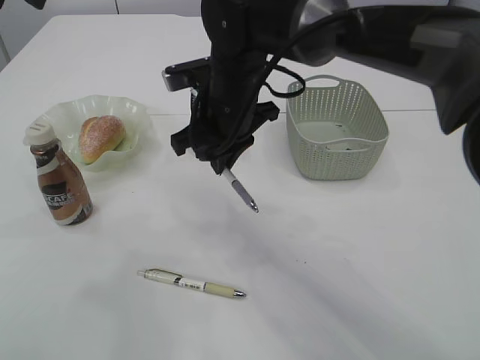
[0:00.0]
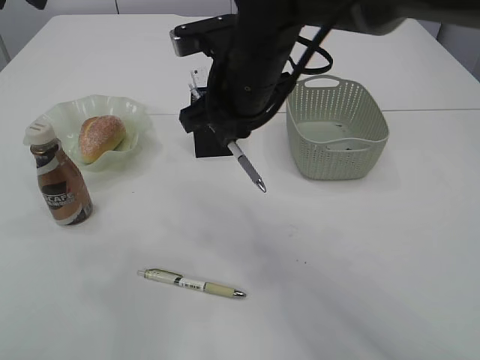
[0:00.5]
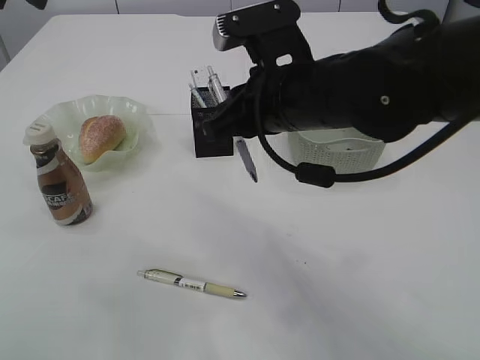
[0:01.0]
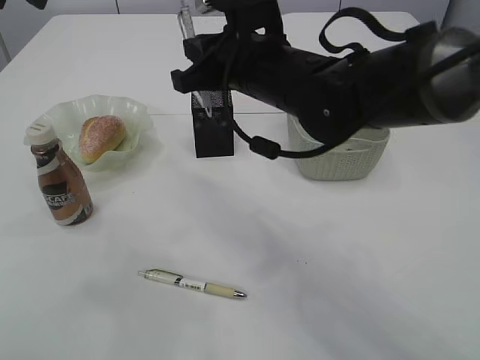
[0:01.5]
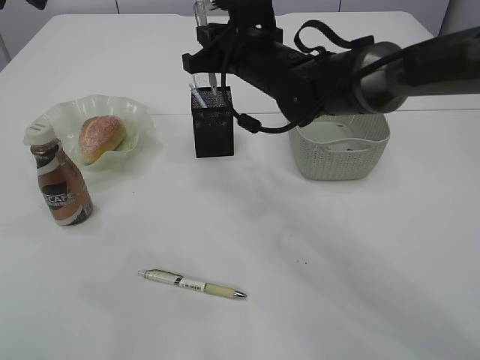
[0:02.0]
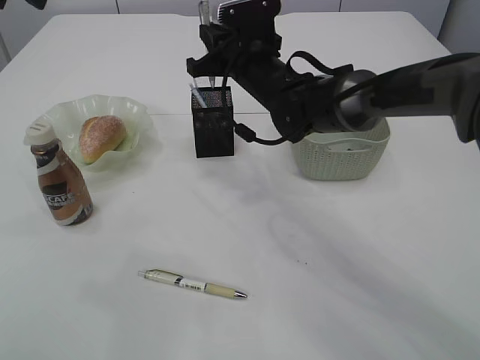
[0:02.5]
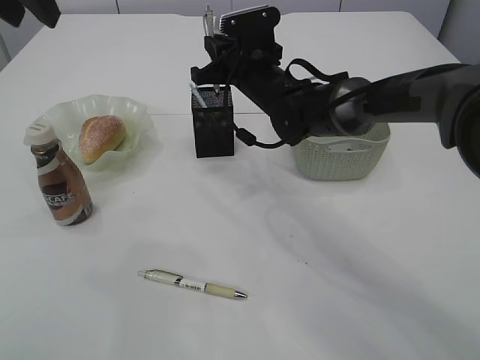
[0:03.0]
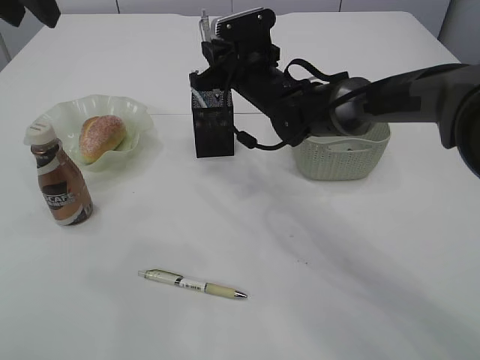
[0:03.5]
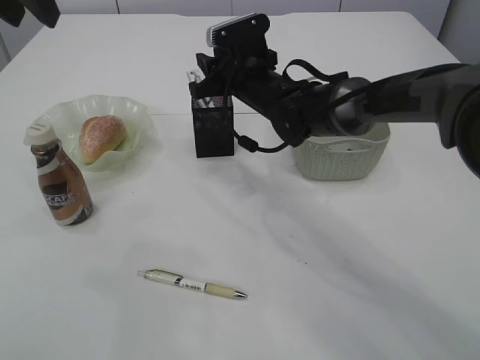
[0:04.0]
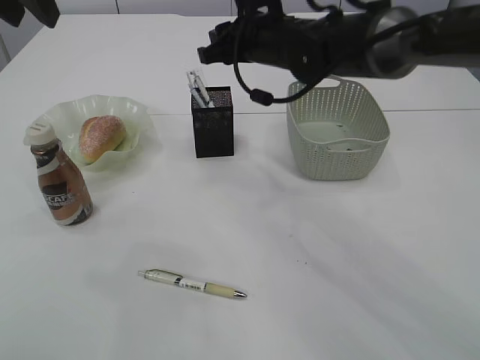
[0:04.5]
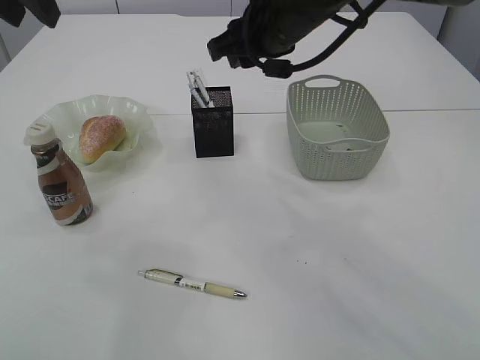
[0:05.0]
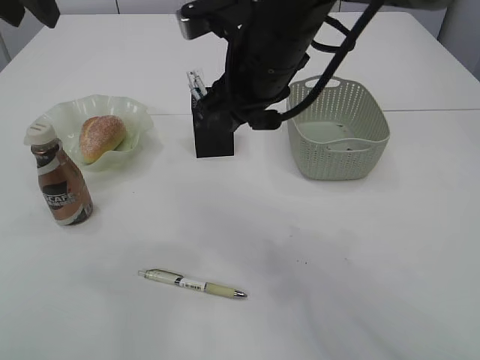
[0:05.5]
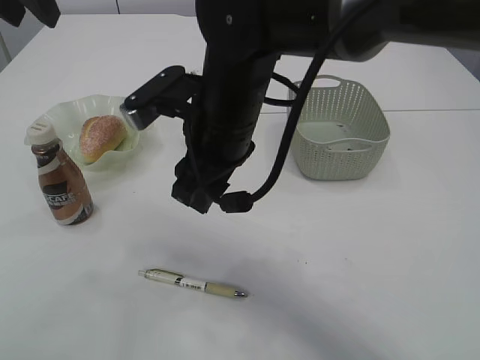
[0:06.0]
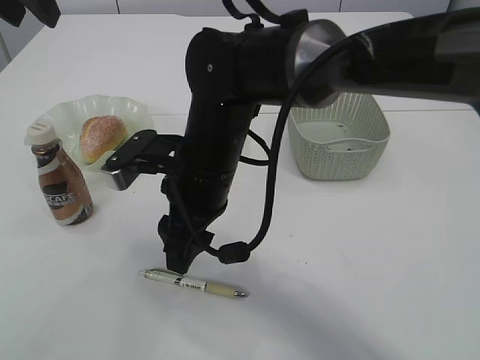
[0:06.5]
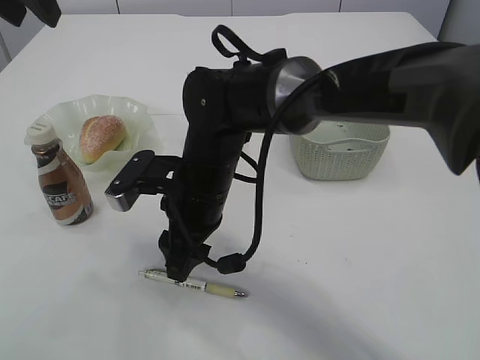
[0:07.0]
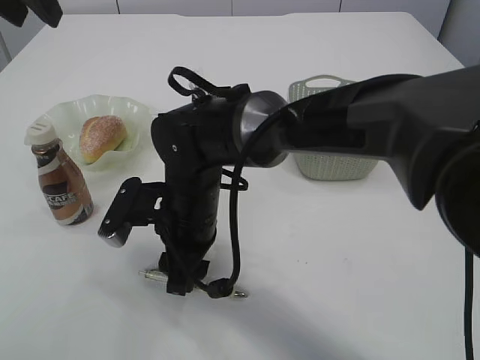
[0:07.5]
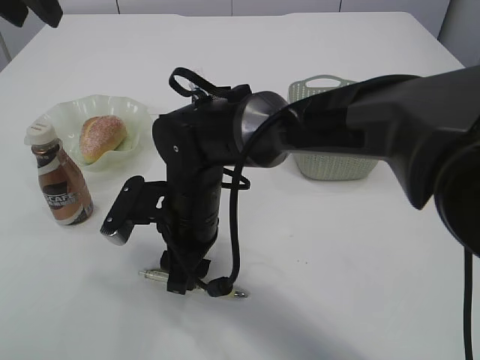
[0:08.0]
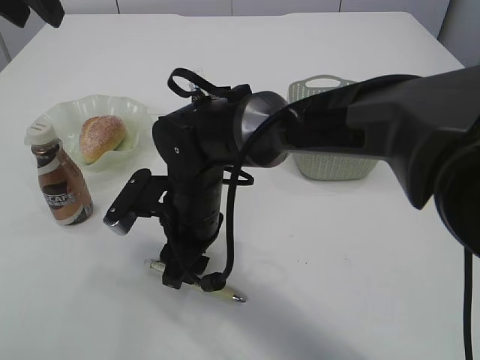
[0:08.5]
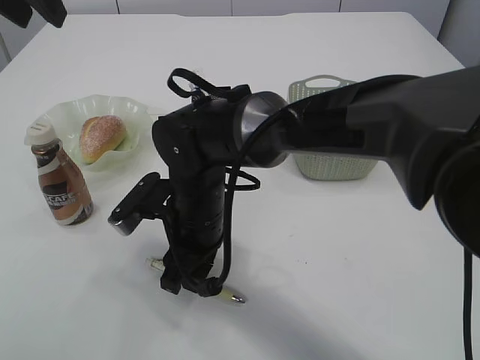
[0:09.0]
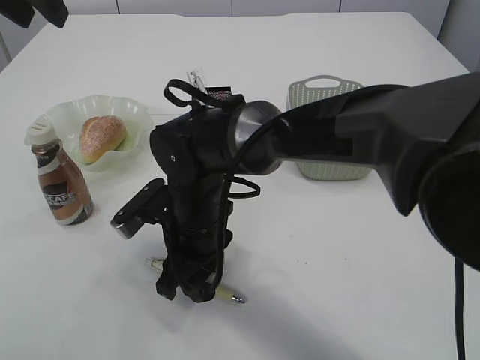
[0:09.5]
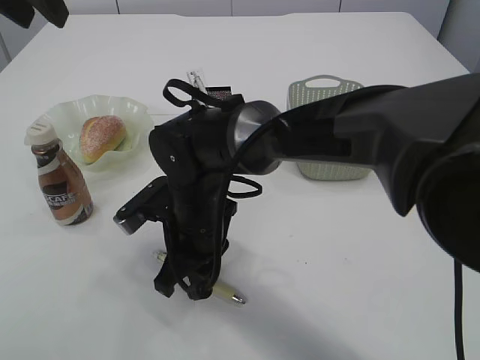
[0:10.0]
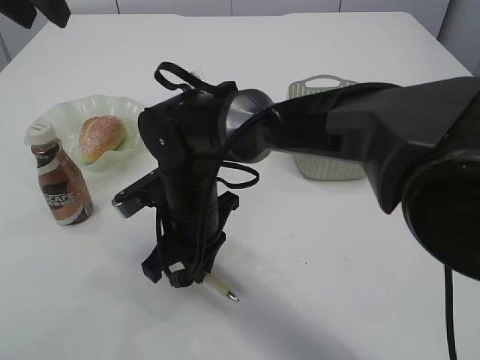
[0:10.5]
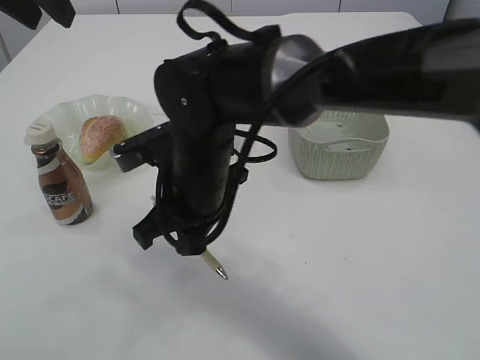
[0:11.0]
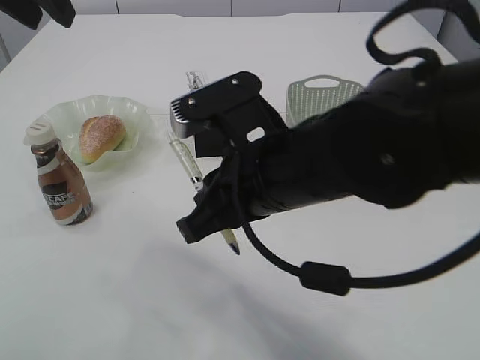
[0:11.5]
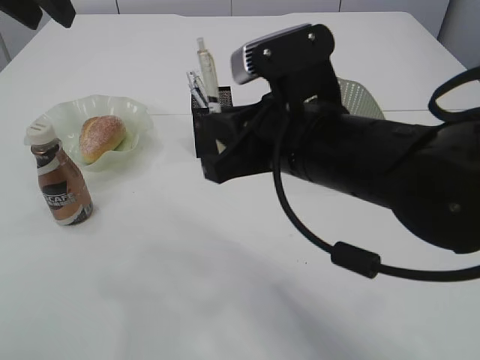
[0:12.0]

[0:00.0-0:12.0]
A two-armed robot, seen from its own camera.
Step, 0.5 to 4.5 s: Place the pen into the pen holder.
Step, 5.0 to 10.5 s: Pick up the pen with right arm.
0.0 to 2.0 s: The right gripper moves forward, approximately 5 cm.
2.0 to 4.0 s: The right gripper is displaced downward by approximately 5 cm, and opens its fingers.
4.0 to 6.0 s: The right gripper goes roughly 15 cm backward and upward.
6.0 to 8.0 s: The right gripper goes some 10 cm downward.
8.0 to 10.0 s: The right gripper closes its fingers.
10.0 to 12.0 s: The right gripper heads upward, to the right and backward, covering some 20 cm.

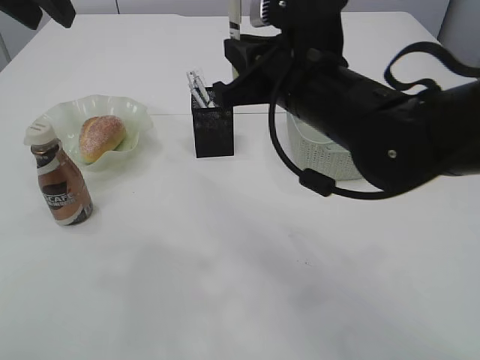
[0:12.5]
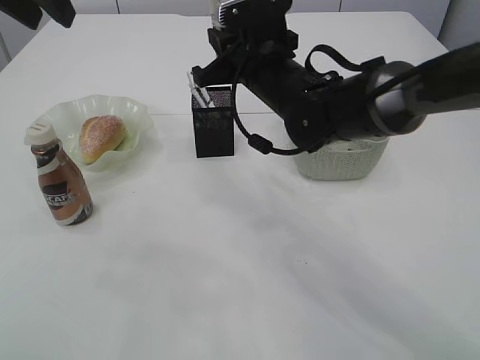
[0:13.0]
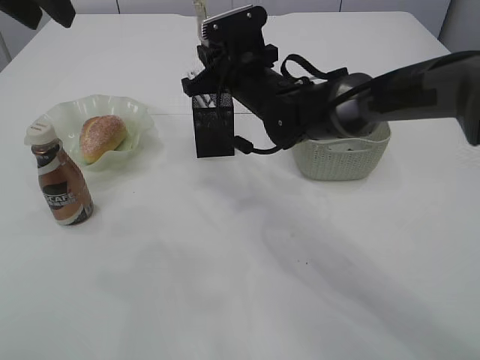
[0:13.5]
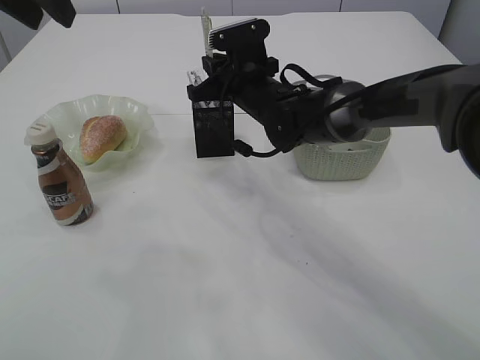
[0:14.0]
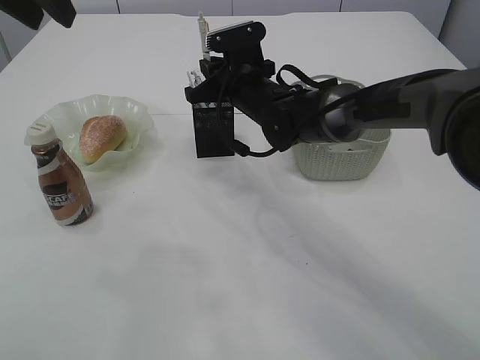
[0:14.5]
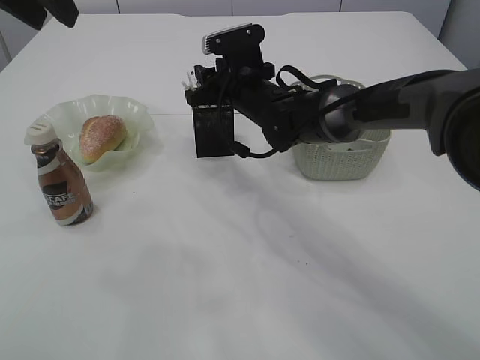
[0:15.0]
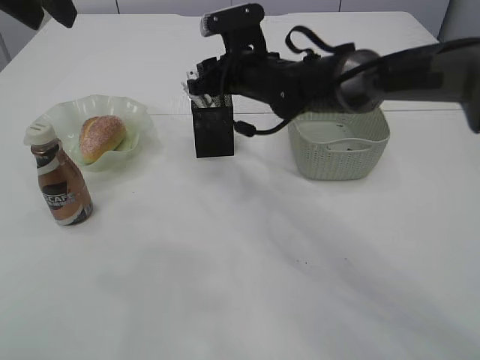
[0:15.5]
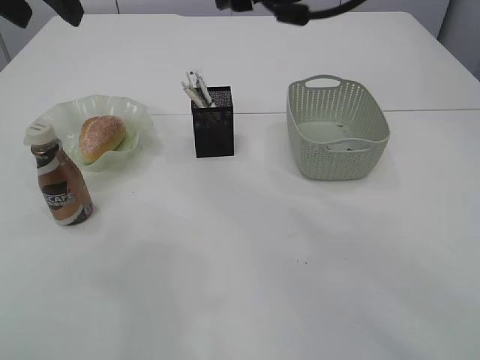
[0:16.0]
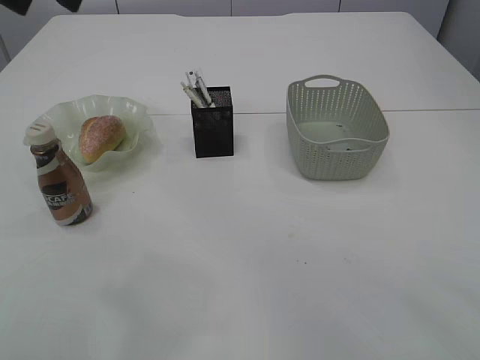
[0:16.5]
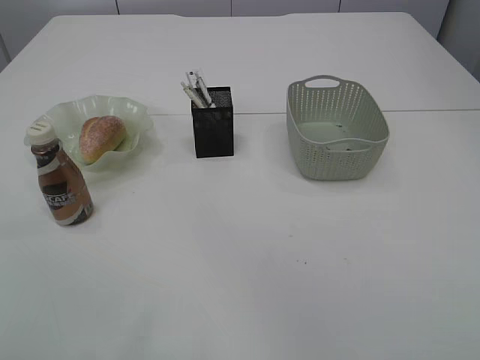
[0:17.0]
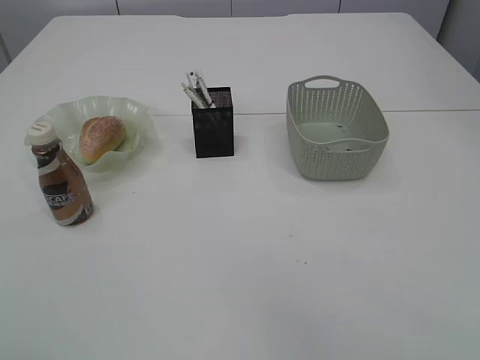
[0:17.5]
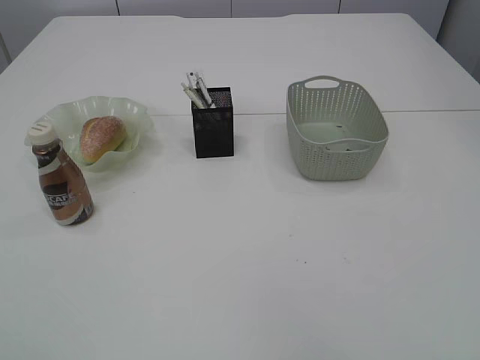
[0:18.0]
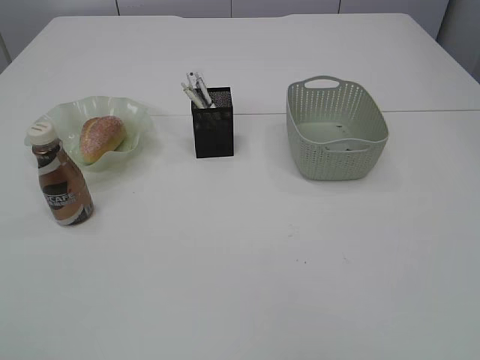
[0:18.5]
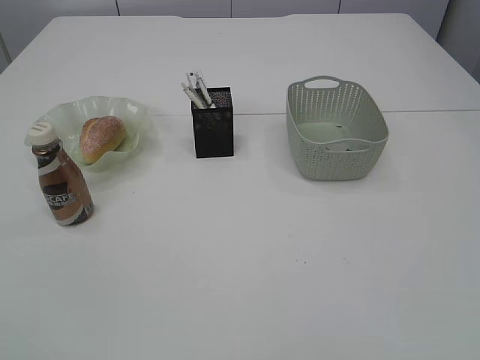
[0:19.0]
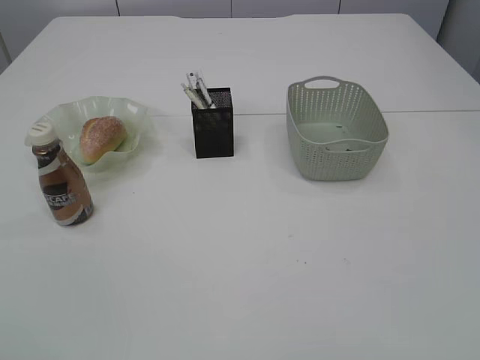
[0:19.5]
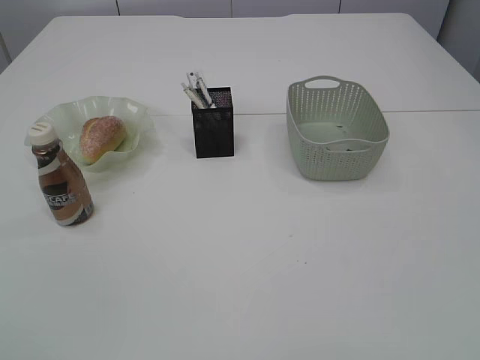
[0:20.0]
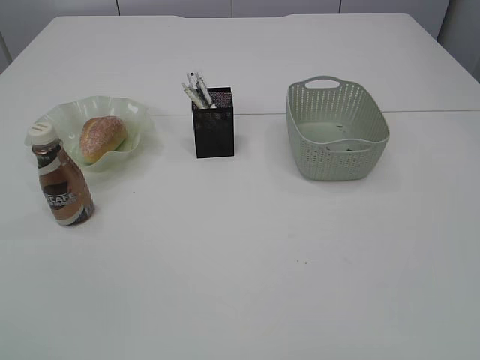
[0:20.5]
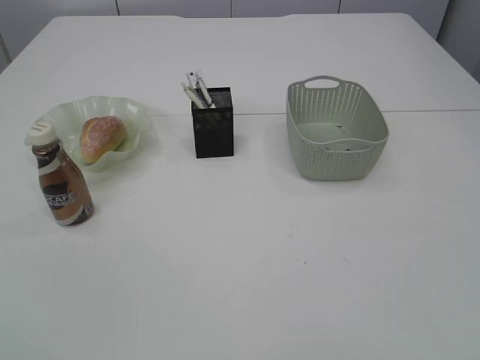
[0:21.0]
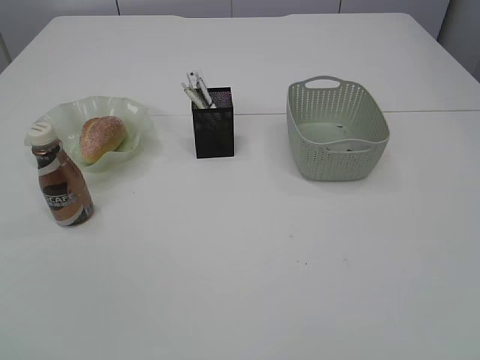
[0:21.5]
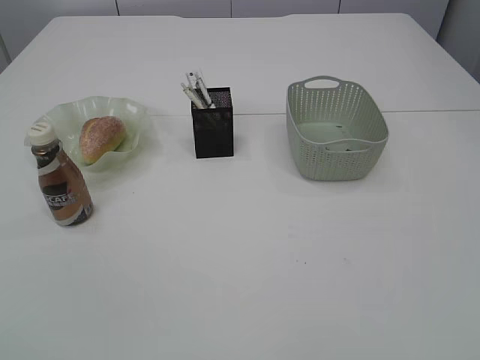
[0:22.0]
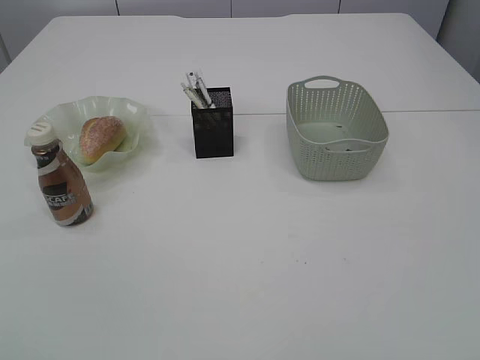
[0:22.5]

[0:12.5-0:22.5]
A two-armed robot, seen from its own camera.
Step, 12.5 to 15.5 s: Place the pen into the pen holder.
12.5 to 14.5 s: The right gripper moves forward and downward, some 20 cm.
14.5 to 16.5 s: The right gripper heads upward and backward, covering about 35 cm, and opens up. Meanwhile the left gripper opens up.
16.5 to 18.5 s: The left gripper goes some 35 cm backward.

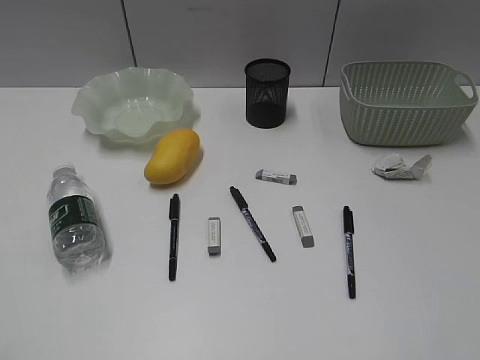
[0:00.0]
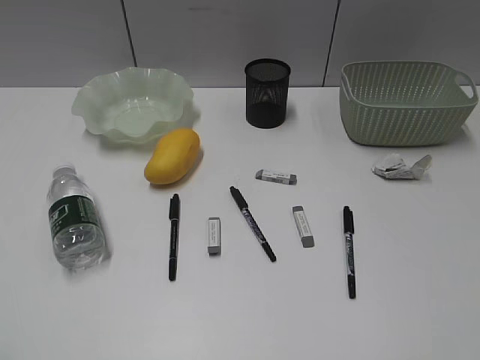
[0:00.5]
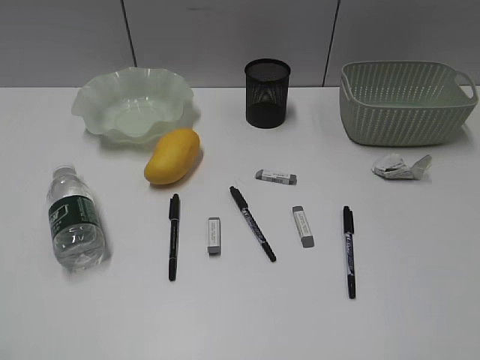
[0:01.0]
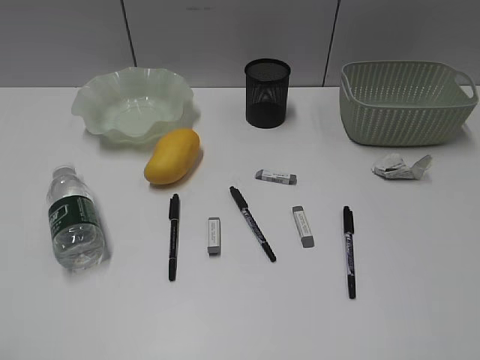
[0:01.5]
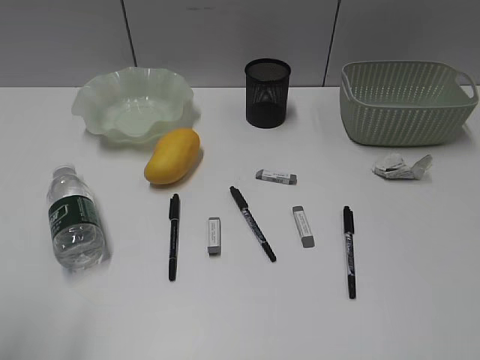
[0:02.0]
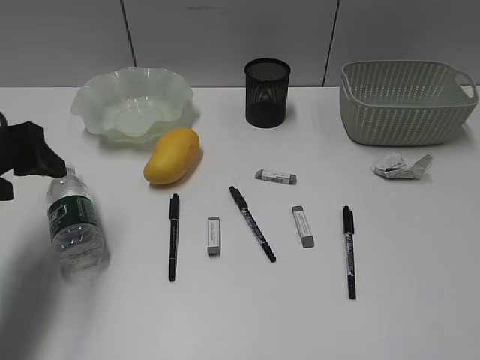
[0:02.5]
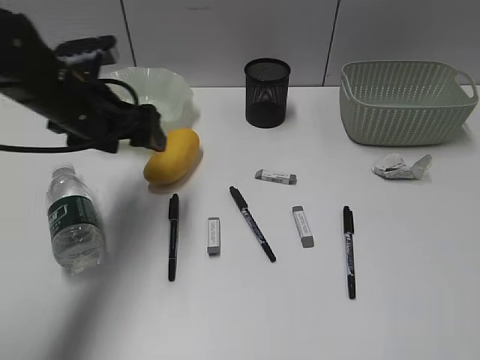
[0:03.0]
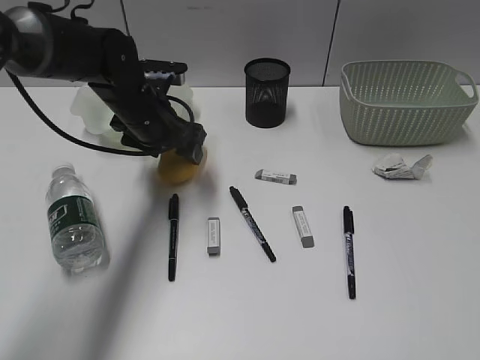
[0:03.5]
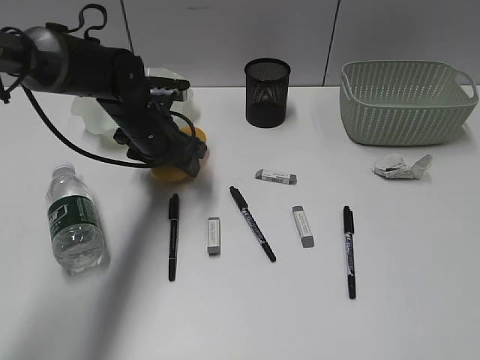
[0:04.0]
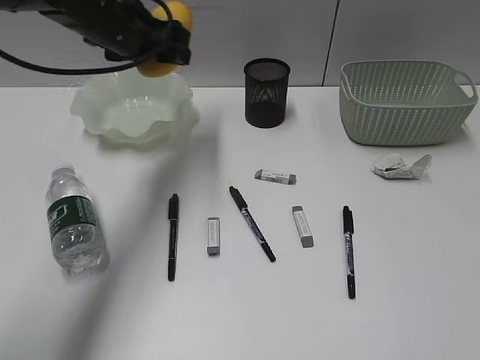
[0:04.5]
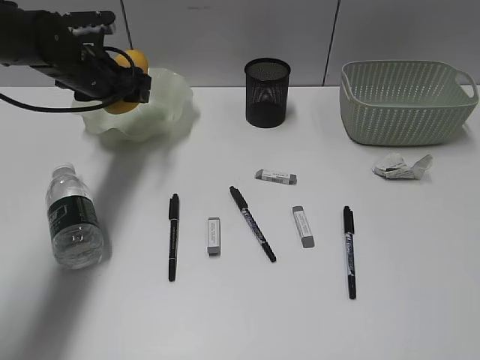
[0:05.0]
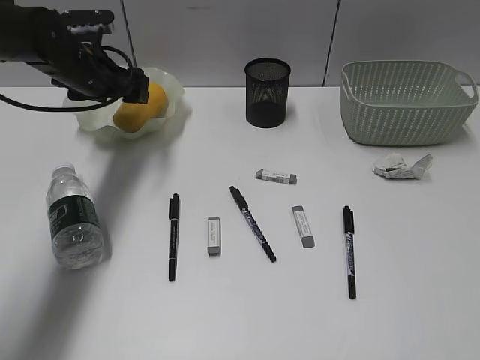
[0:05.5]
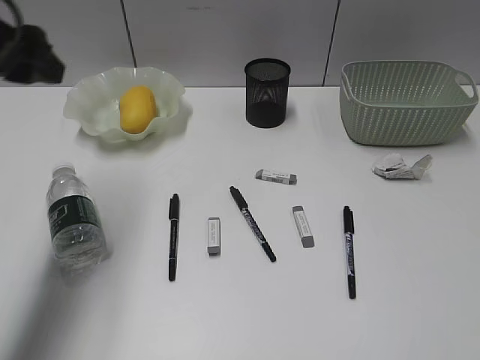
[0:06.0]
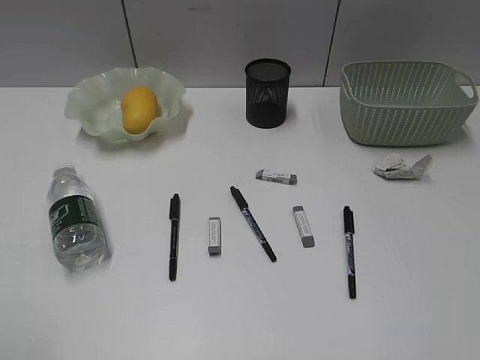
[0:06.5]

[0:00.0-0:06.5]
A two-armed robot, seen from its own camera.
Step, 1.5 to 4.0 s: Grasp the mango with left gripper.
Step, 4.5 to 5.5 s: Place the mango in the plate with left gripper.
2.0 to 4.5 s: The left gripper is displaced forward and to the right by roughly 40 cm.
4.5 to 6.5 s: The left gripper travels backward and to the left by approximately 40 cm.
